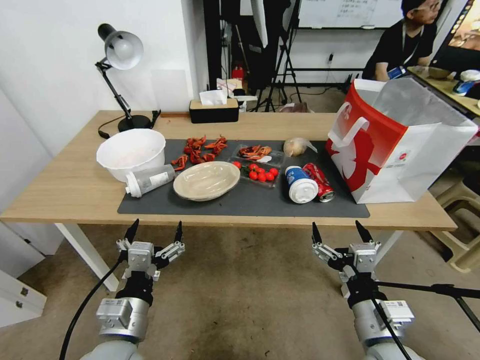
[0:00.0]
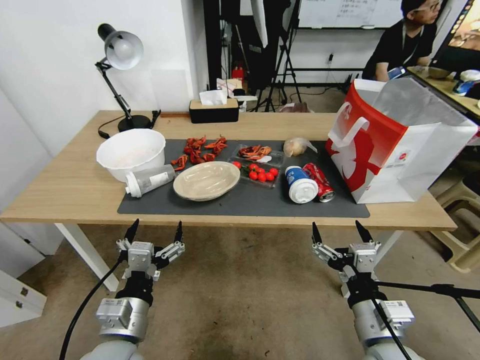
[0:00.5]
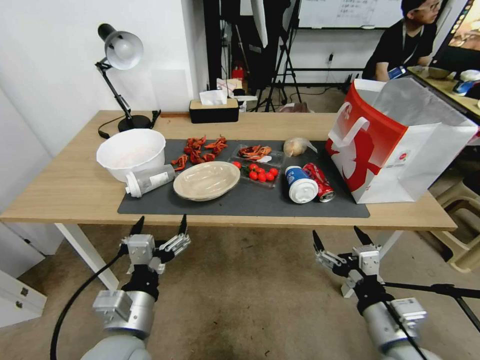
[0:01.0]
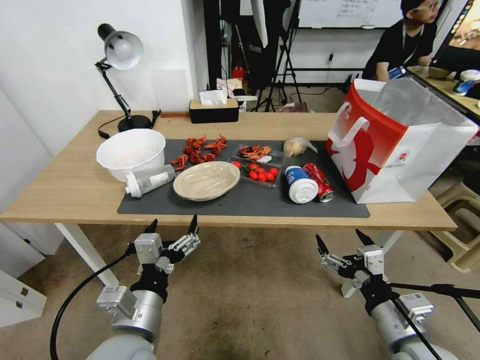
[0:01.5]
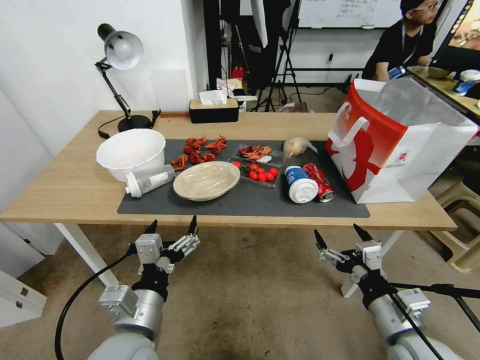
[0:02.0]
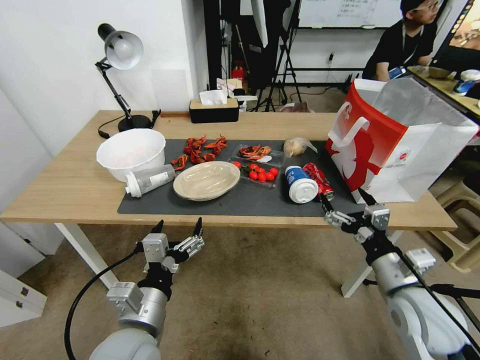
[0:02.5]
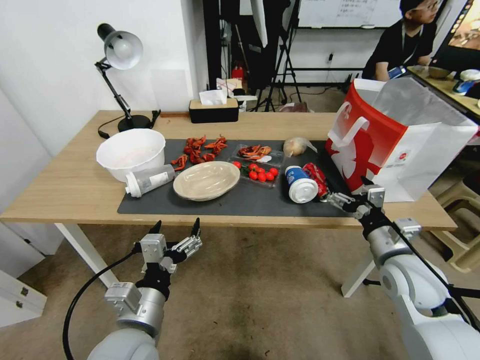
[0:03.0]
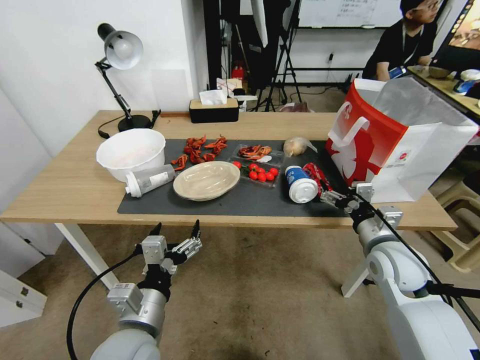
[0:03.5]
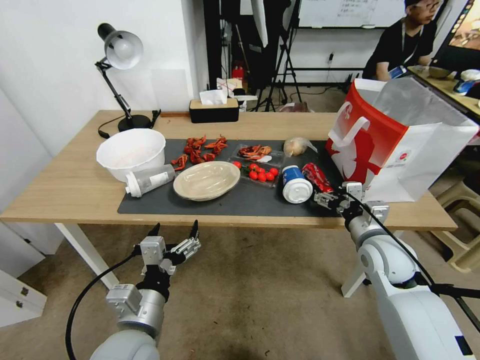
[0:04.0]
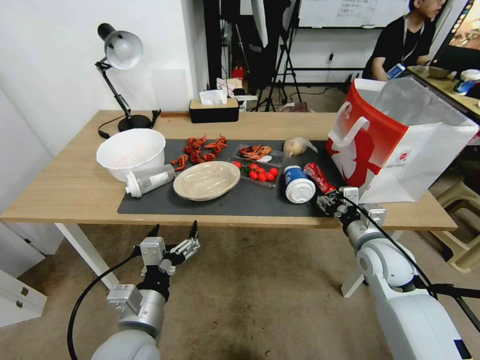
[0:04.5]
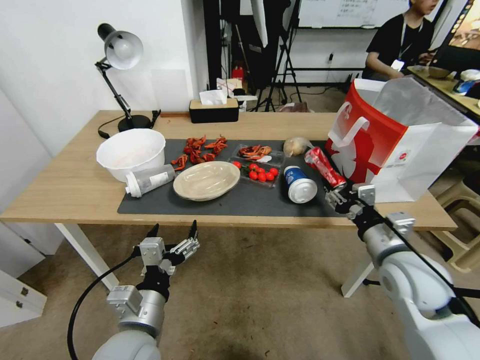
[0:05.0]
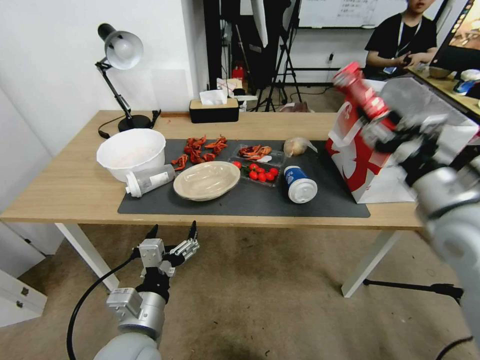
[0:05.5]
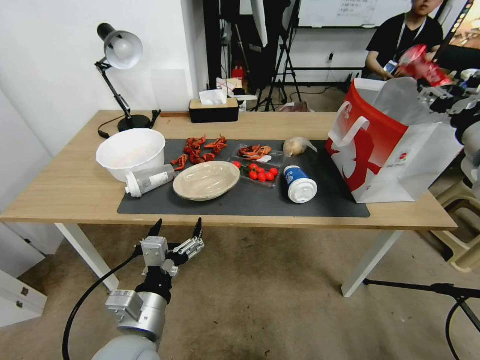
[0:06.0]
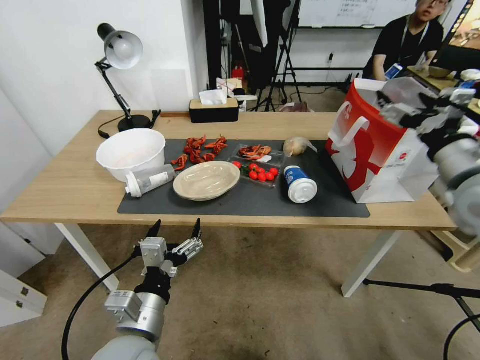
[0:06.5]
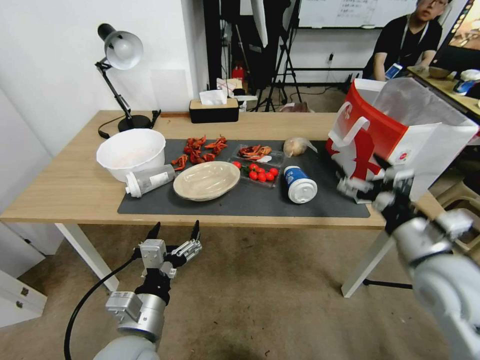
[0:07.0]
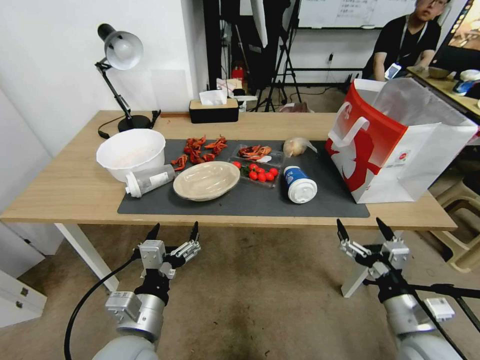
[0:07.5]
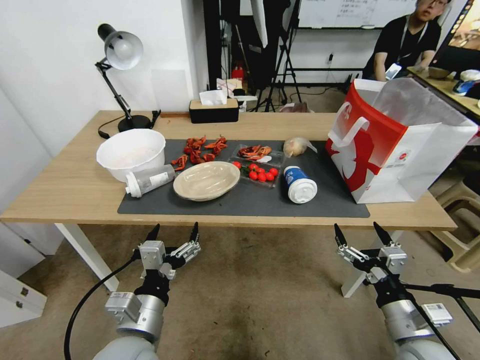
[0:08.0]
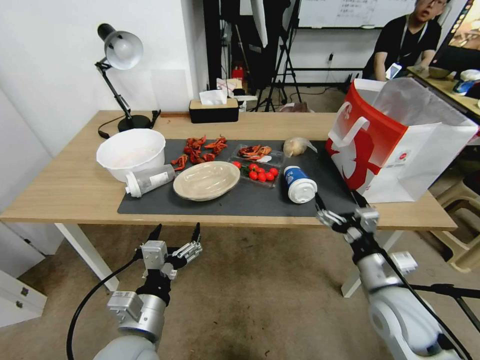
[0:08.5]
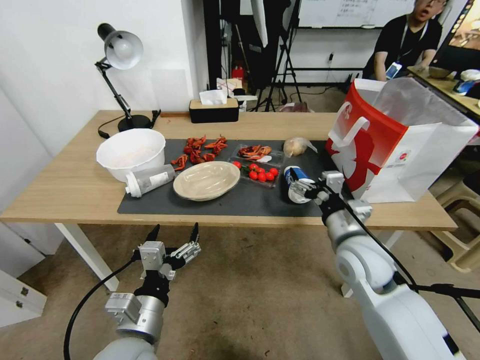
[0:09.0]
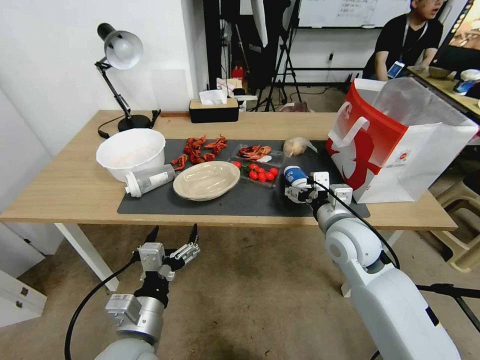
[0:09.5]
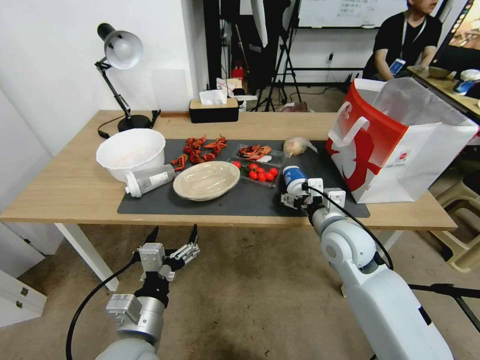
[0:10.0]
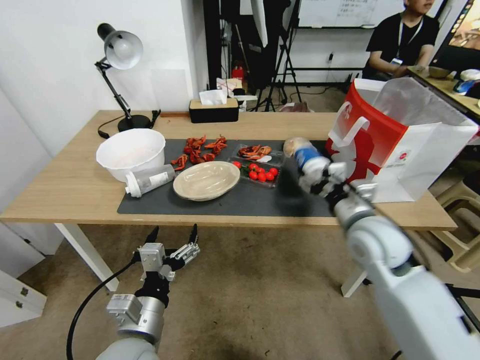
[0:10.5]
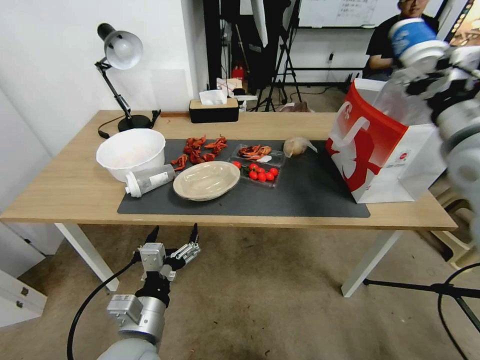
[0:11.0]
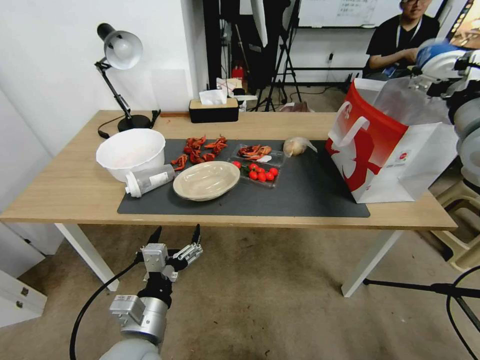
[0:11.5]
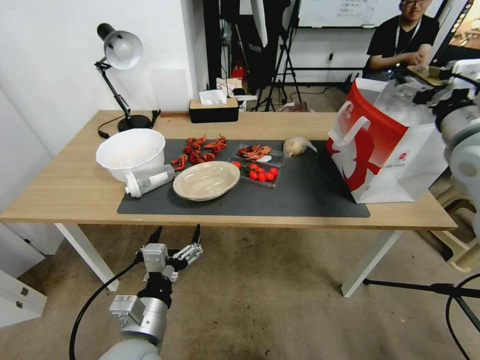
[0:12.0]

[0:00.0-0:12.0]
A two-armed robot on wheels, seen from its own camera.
0:02.0 to 0:04.0: The right gripper moves forward, roughly 20 cm.
0:04.0 to 0:06.0: The right gripper moves upward and to the right, approximately 25 cm, and closes up.
0:06.0 to 0:08.0: The right gripper heads downward and backward, covering some 35 cm, and opens its fingers.
0:08.0 to 0:10.0: The right gripper travels forward, to the left and upward by approximately 25 cm.
0:10.0 to 0:12.0: The right gripper moves upward and to the right, about 25 cm.

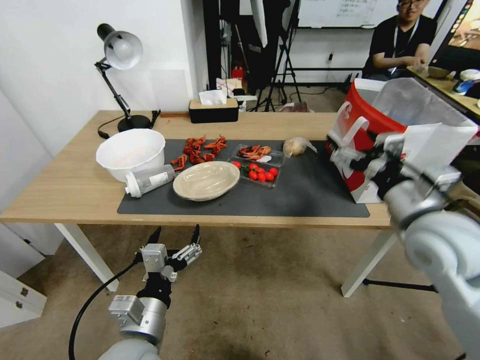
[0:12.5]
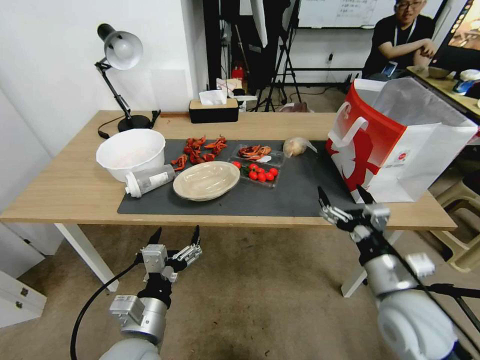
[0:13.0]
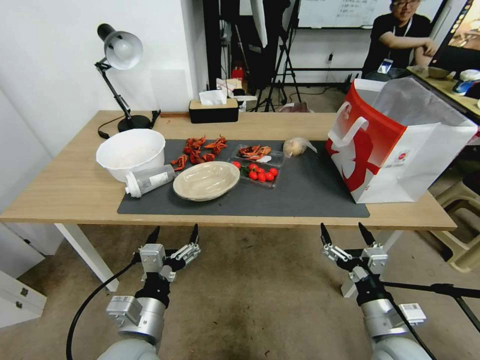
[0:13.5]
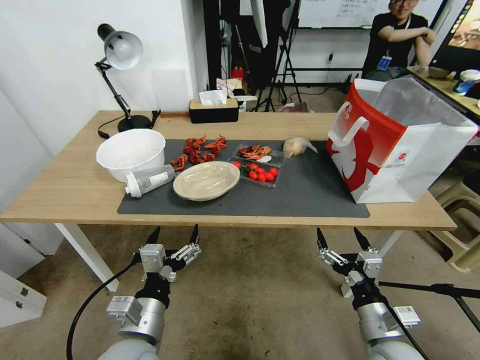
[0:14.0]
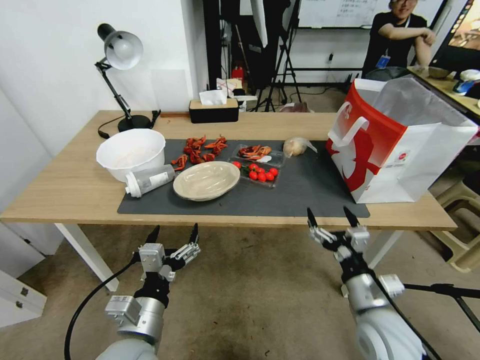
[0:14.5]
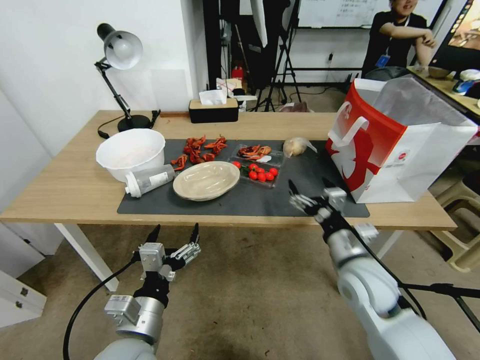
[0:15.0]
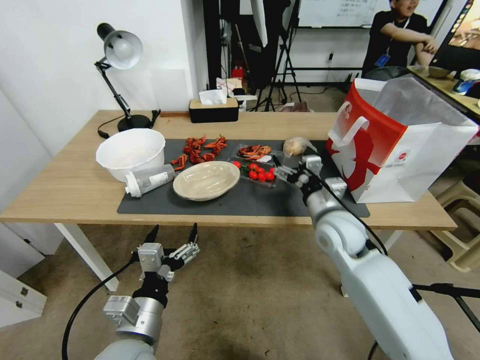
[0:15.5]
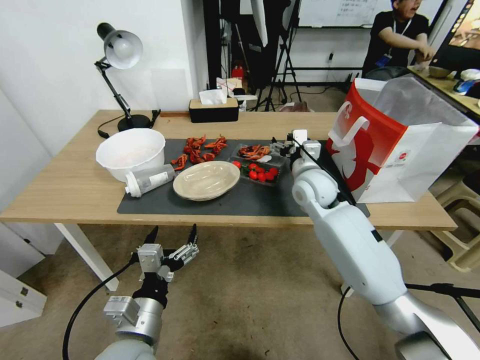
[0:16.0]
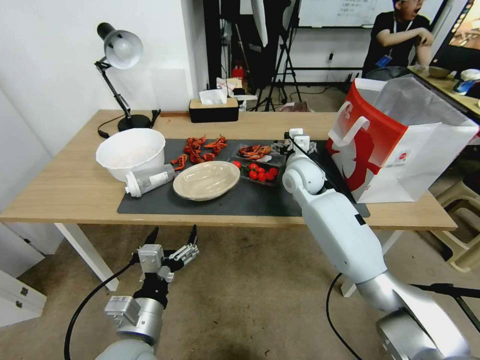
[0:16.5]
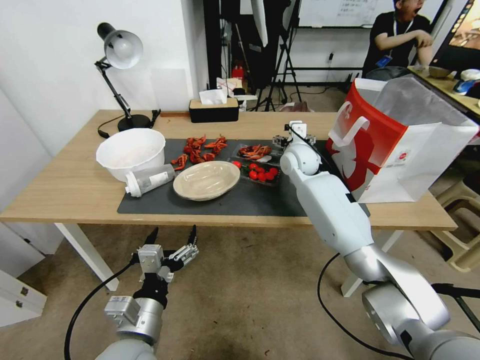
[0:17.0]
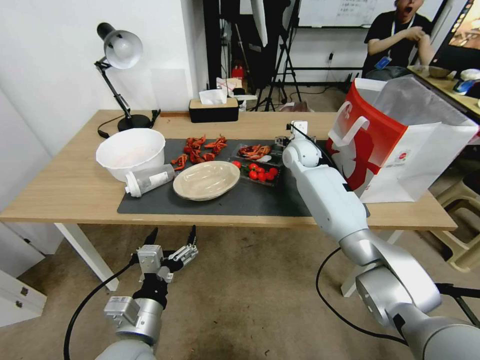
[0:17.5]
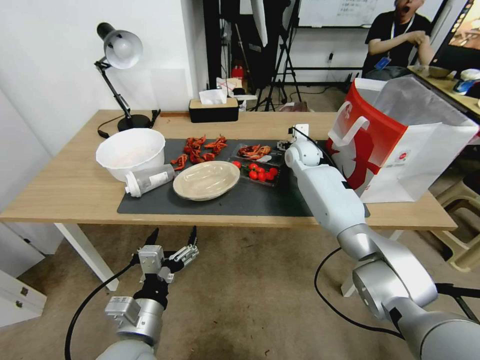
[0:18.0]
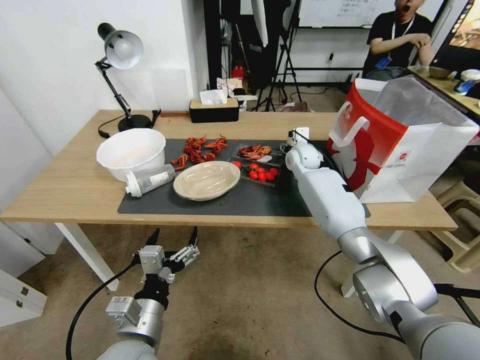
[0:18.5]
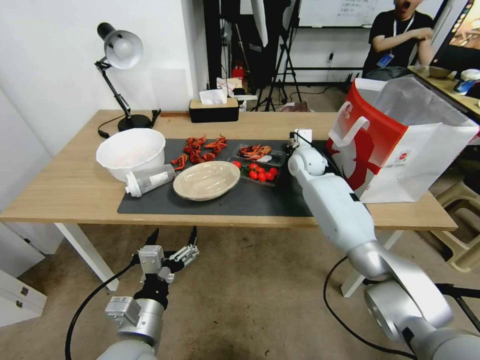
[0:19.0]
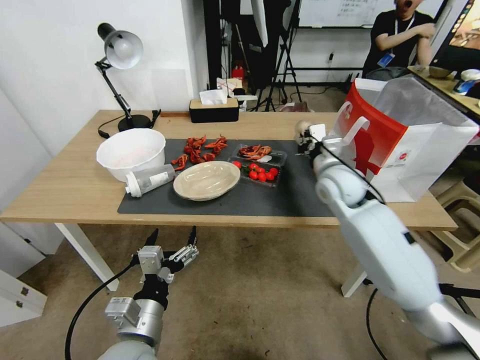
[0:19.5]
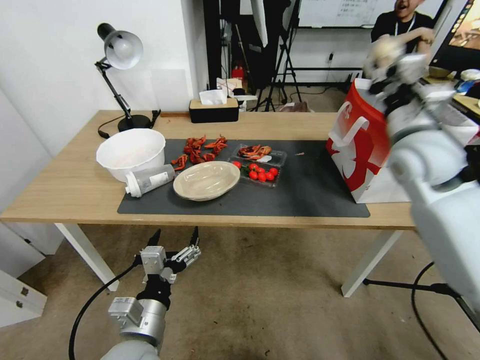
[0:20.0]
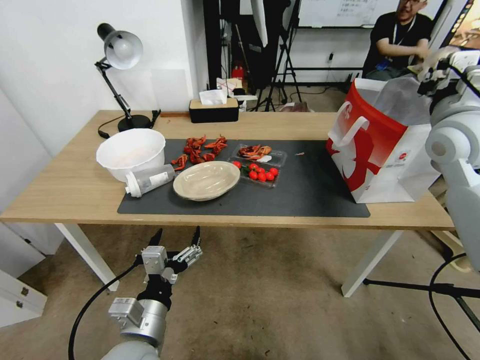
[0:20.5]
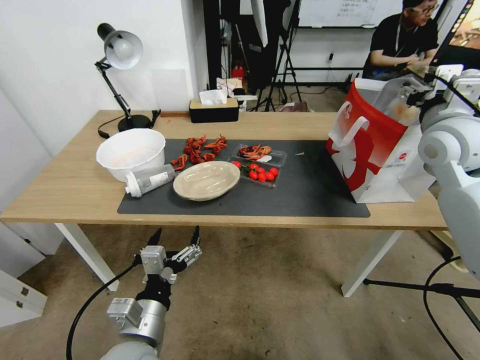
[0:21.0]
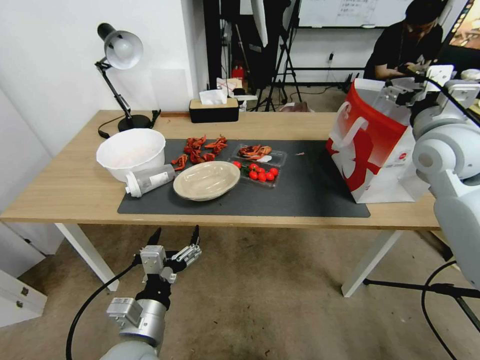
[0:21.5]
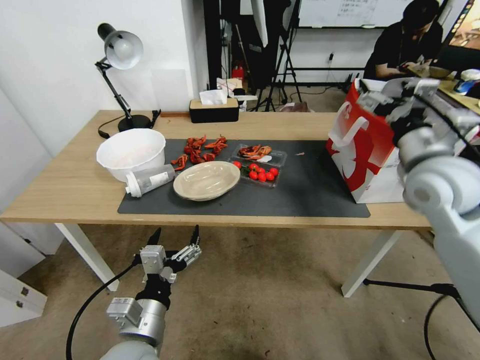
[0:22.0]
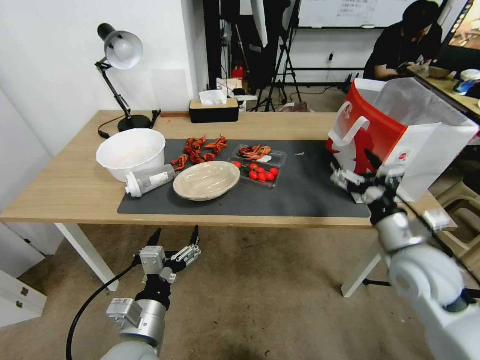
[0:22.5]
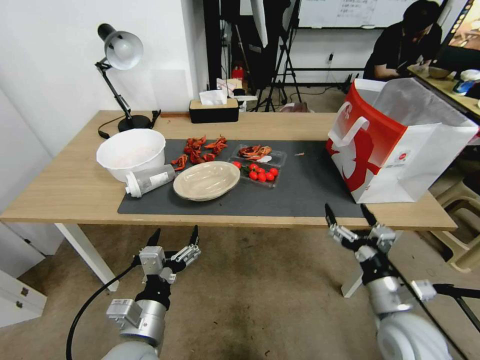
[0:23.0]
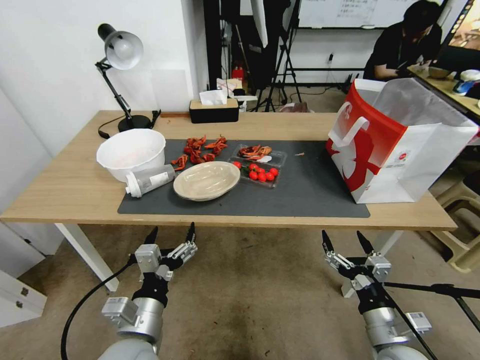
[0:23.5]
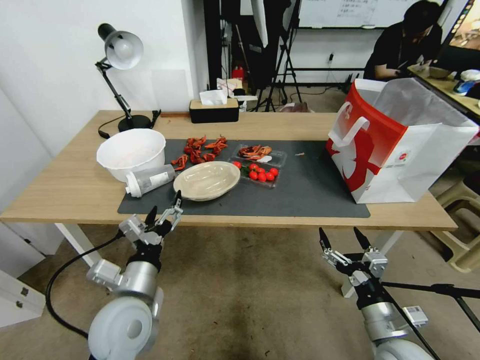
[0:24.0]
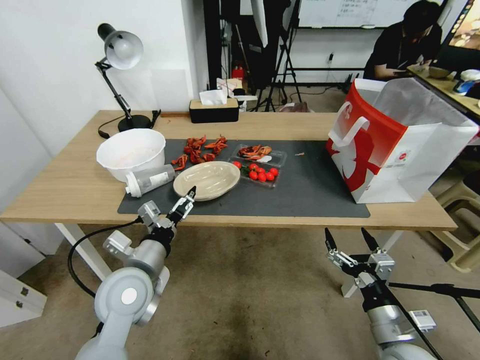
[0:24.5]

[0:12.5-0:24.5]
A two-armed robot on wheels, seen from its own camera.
0:12.5 to 0:14.5: The right gripper travels downward and backward by roughly 20 cm.
0:14.5 to 0:16.5: The right gripper is displaced forward by about 30 cm.
0:16.5 to 0:18.5: The right gripper travels forward by some 10 cm.
0:18.5 to 0:20.5: The right gripper moves upward, backward and to the right, roughly 35 cm, and closes its fingers.
0:20.5 to 0:22.5: The right gripper shifts some 25 cm downward and backward, and opens up.
0:22.5 to 0:24.5: The left gripper moves forward, some 10 cm. Meanwhile the right gripper heads backward and downward, covering roughly 20 cm.

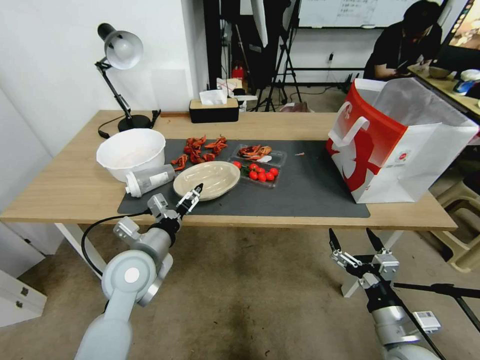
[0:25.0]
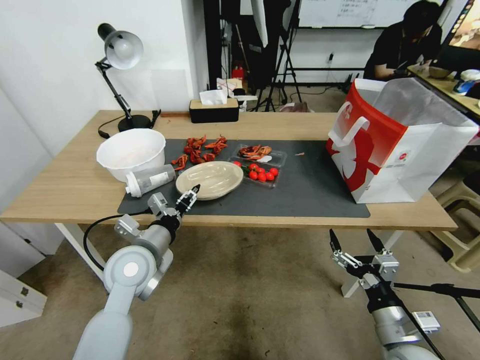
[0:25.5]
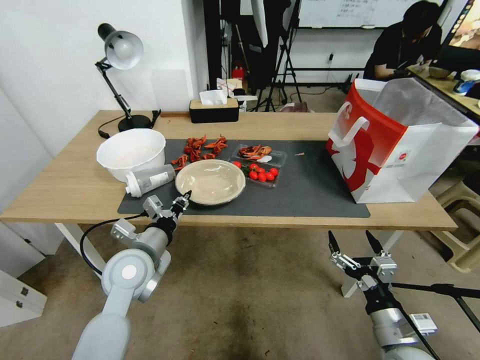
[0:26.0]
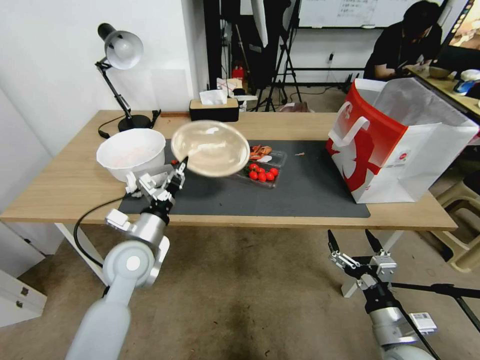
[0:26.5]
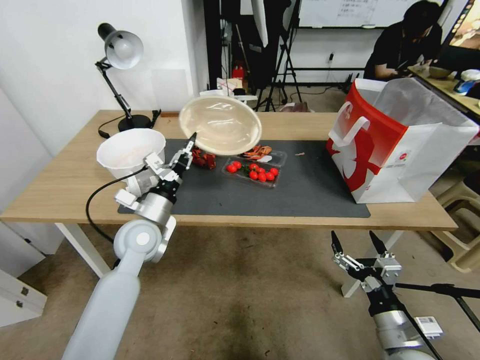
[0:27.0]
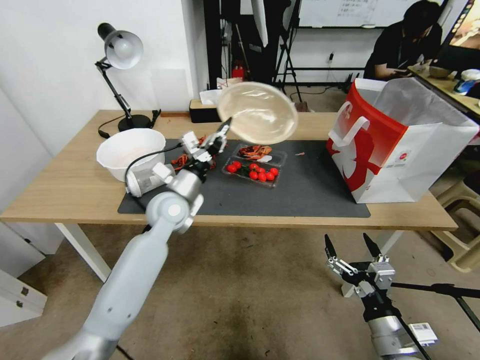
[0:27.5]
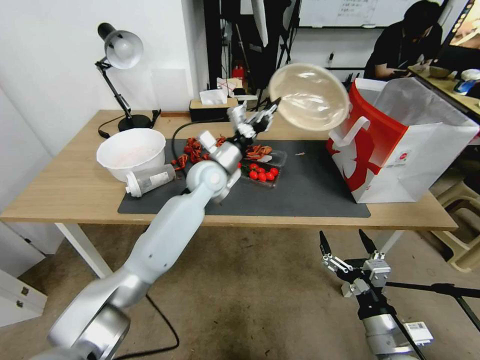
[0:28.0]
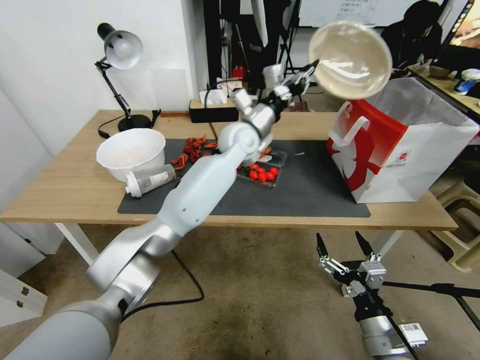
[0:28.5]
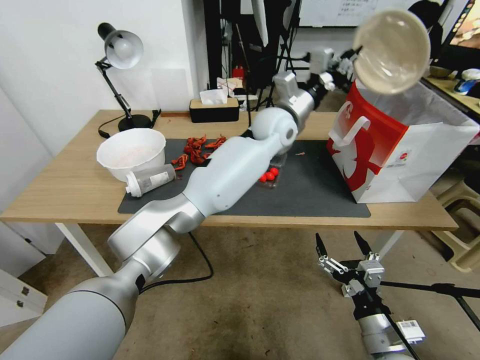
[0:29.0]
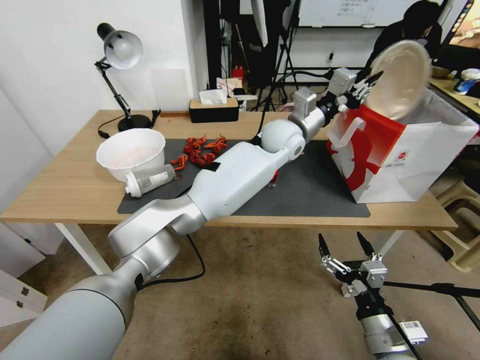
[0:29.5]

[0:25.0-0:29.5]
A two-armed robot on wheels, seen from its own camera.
0:25.0 to 0:27.0: The left gripper heads forward, covering some 10 cm, and closes up.
0:27.0 to 0:29.5: The left gripper travels to the right, forward and upward by approximately 40 cm.
